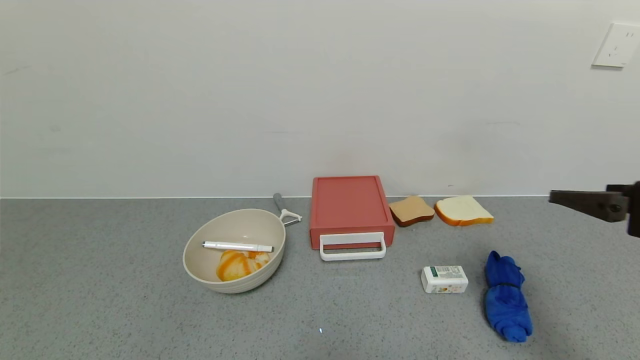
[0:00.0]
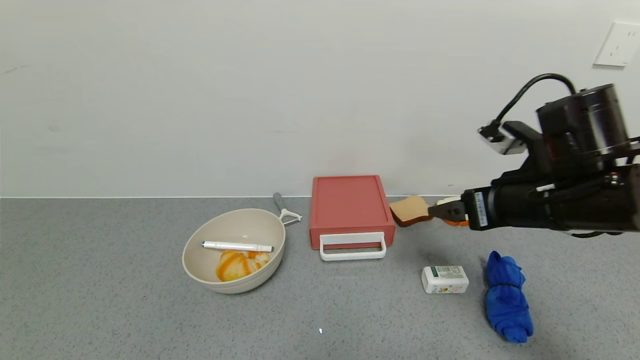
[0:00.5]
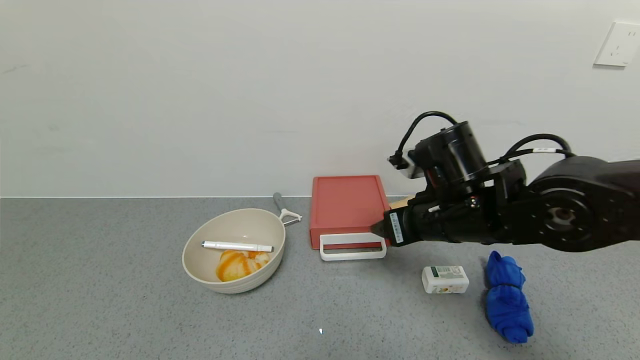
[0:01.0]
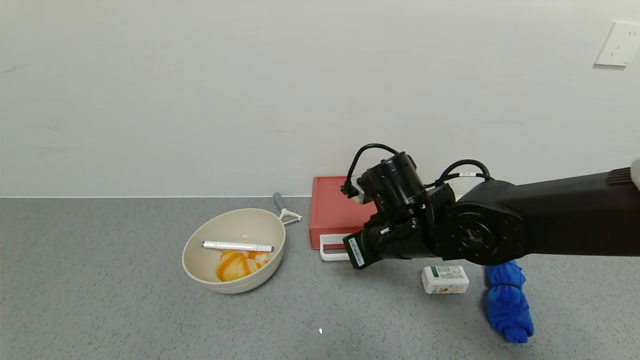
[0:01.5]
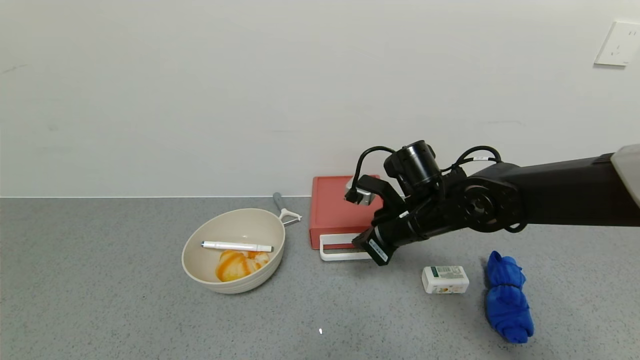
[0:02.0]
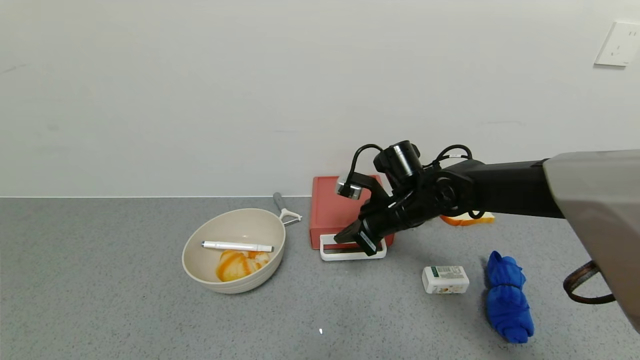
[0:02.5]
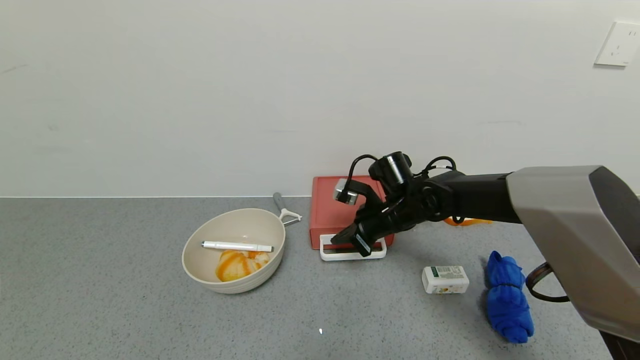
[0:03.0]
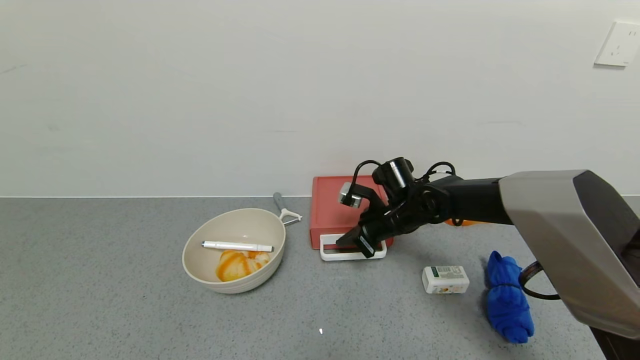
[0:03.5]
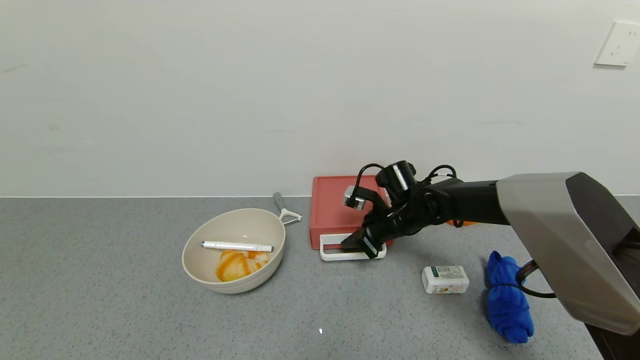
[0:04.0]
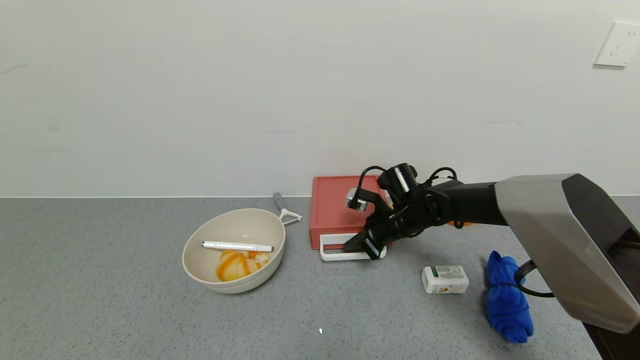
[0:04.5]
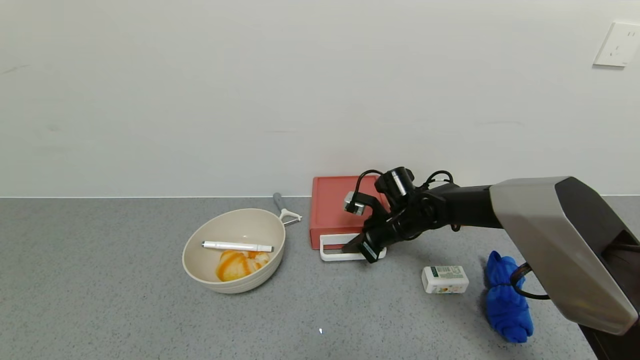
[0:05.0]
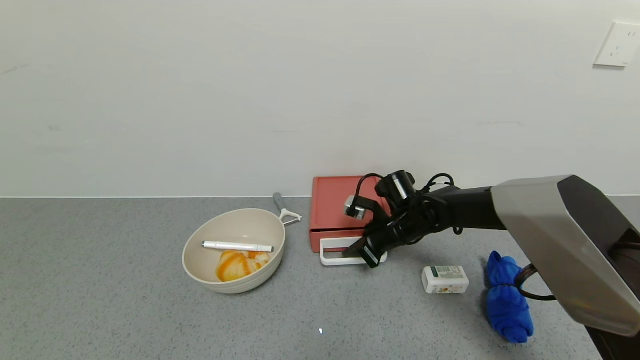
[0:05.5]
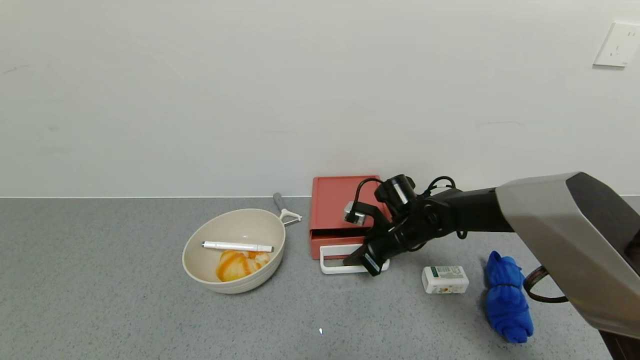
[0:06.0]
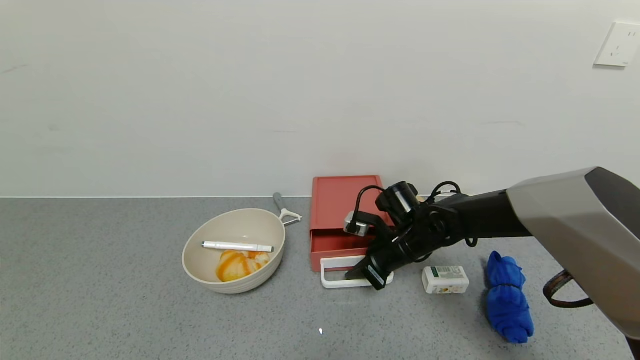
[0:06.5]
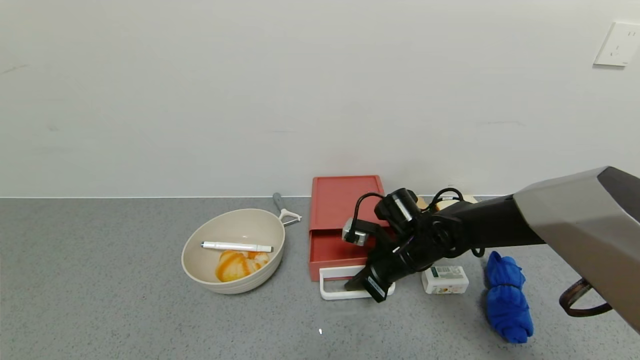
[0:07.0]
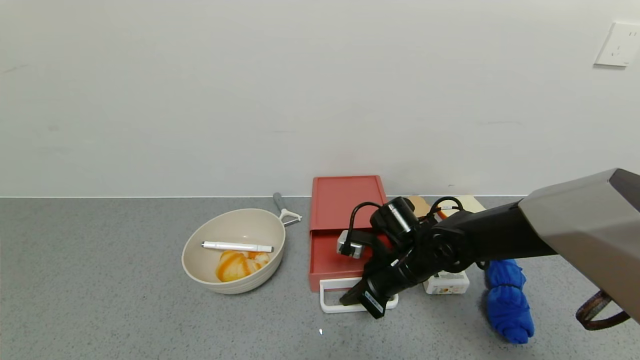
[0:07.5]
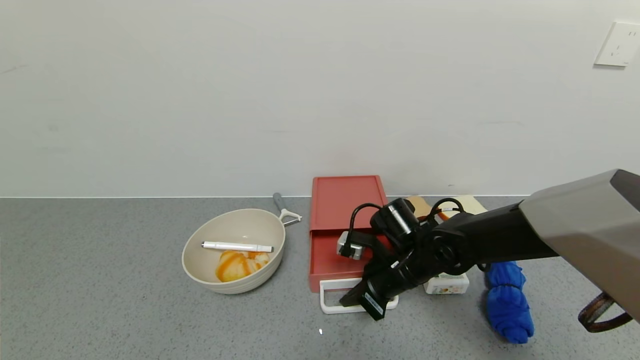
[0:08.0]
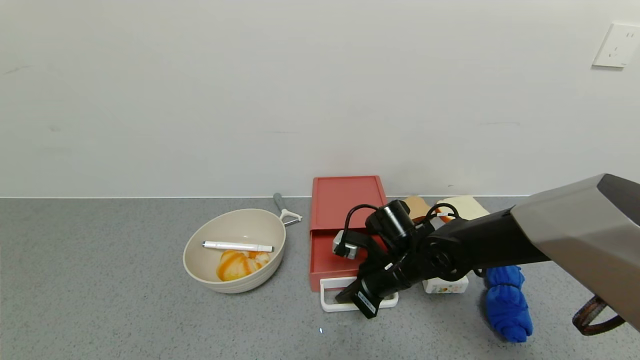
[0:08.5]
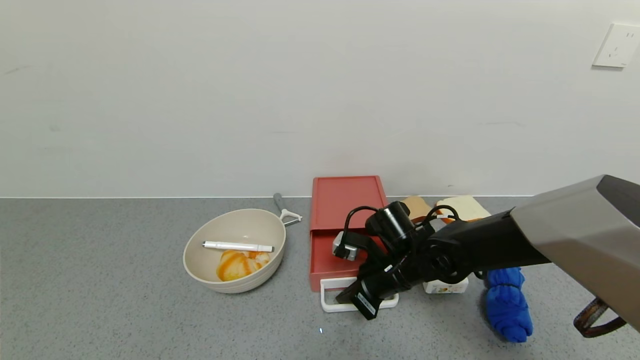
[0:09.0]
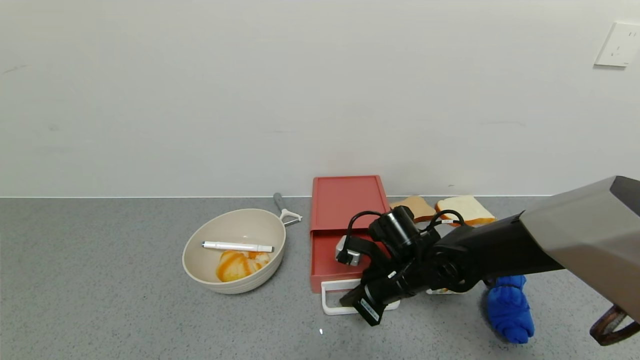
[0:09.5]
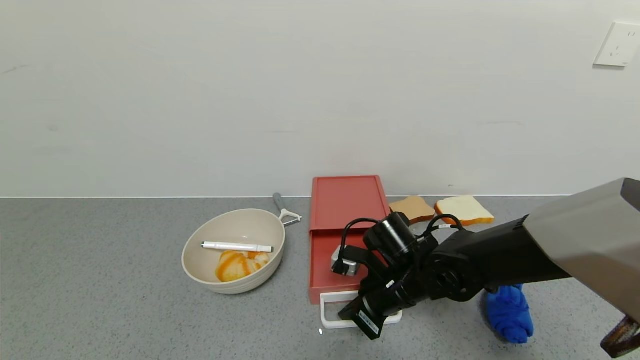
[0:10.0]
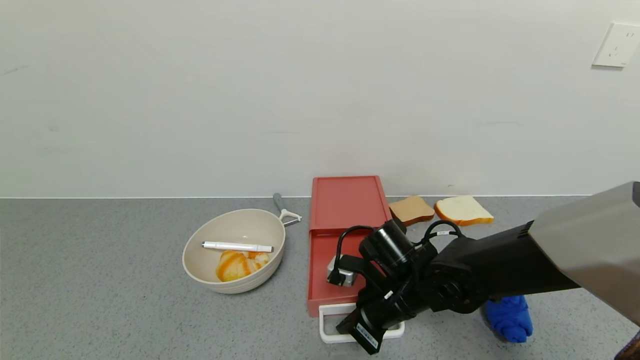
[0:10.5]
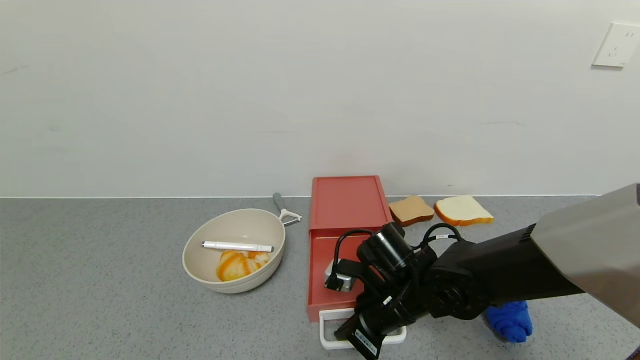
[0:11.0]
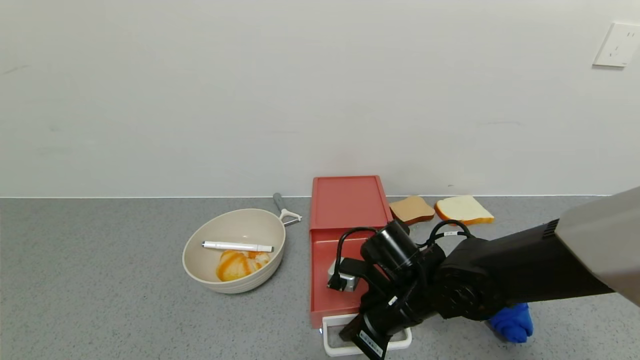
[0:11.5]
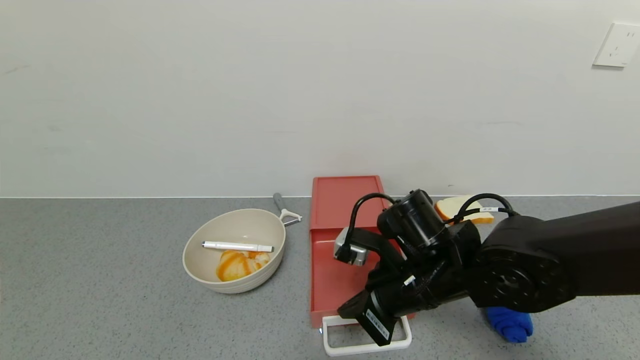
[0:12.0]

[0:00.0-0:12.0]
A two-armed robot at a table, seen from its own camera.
Task of the whole recording: use the gripper to open the drawer and close the red drawer.
Step, 0:00.0 to 0:11.5: Open the red drawer with the right gripper.
0:00.0 to 0:02.0: The right gripper moves to the left, forward and downward, about 30 cm, and closes up.
0:02.0 to 0:04.0: The right gripper is displaced forward and downward by some 10 cm.
0:04.0 to 0:06.0: The grippers stay close to where they were, moving slightly.
0:06.0 to 0:08.0: The right gripper moves backward, about 10 cm.
0:08.0 to 0:10.0: The grippers stay close to where they were, moving slightly.
0:10.0 to 0:12.0: The right gripper travels upward by roughly 10 cm.

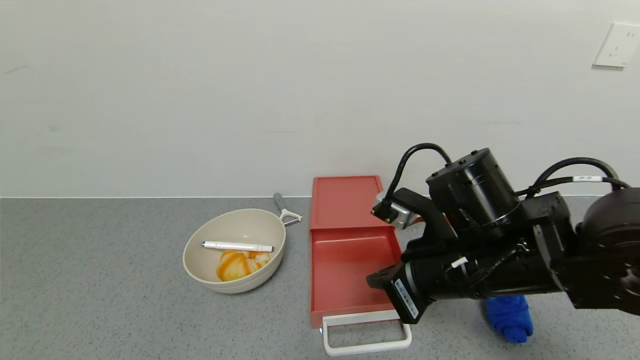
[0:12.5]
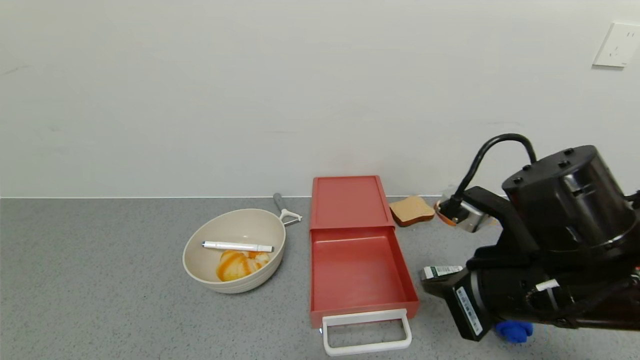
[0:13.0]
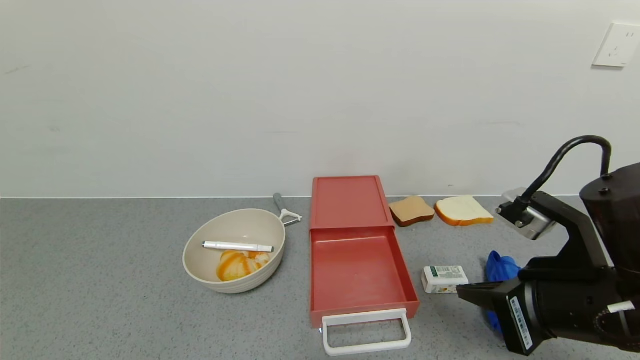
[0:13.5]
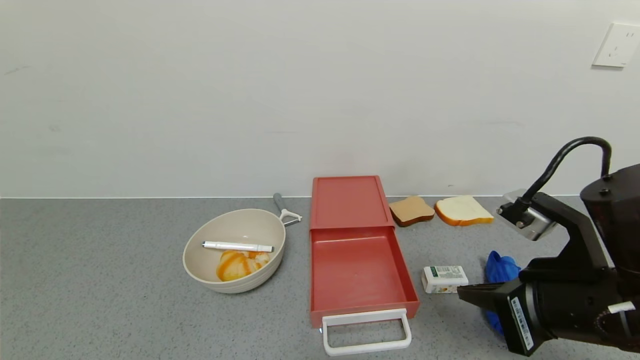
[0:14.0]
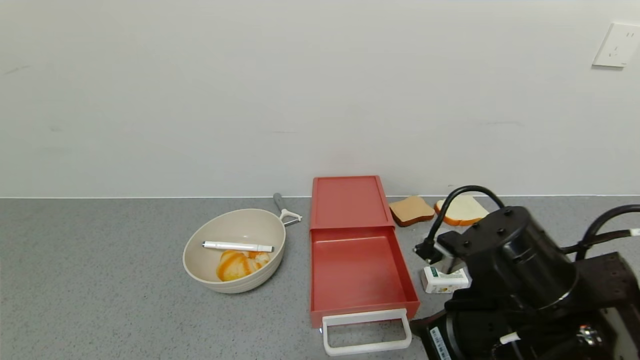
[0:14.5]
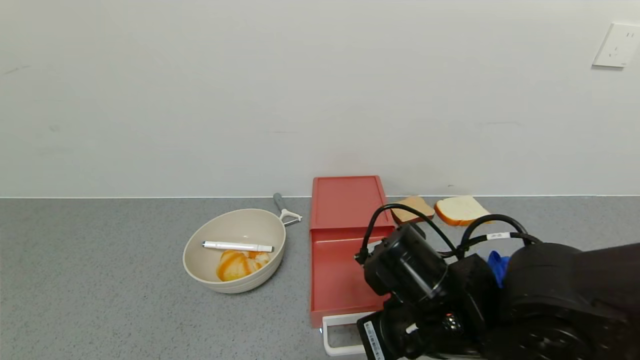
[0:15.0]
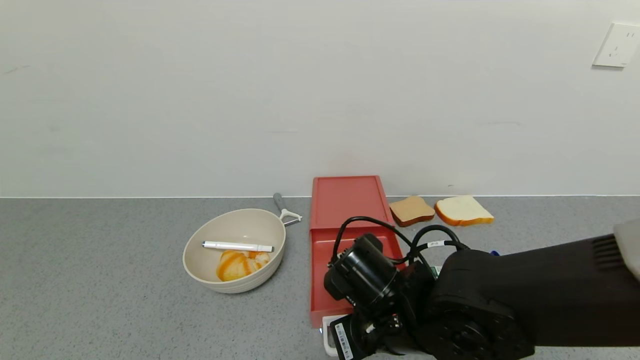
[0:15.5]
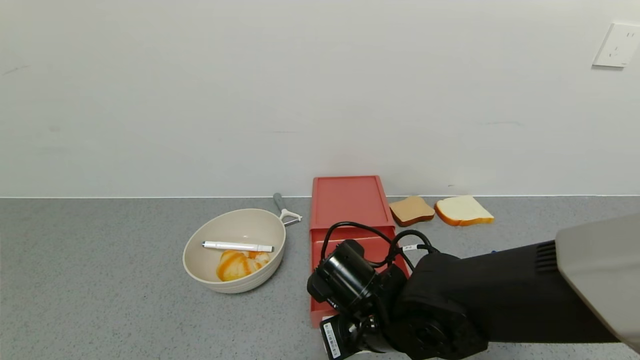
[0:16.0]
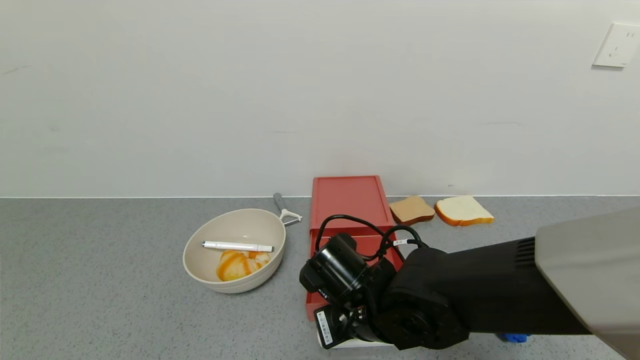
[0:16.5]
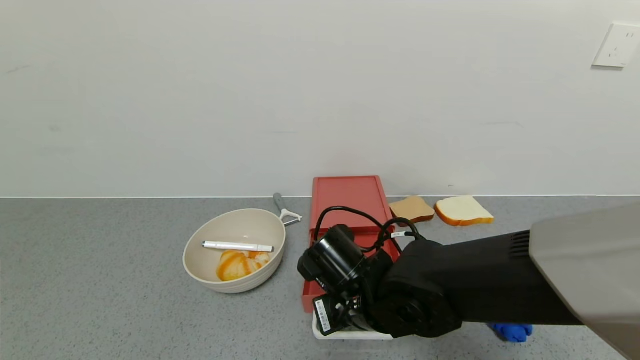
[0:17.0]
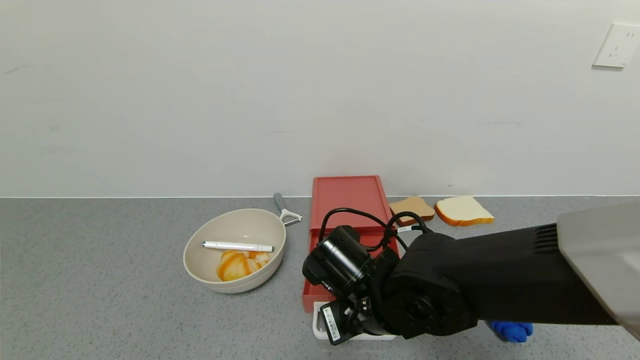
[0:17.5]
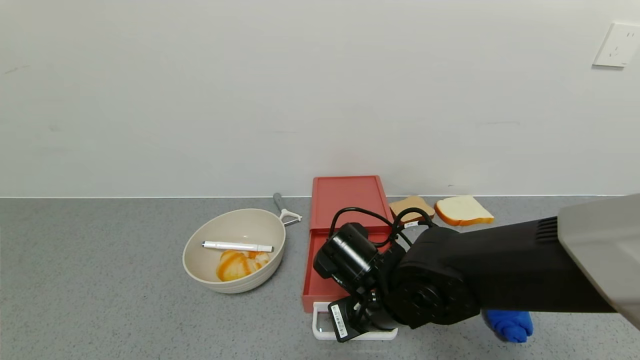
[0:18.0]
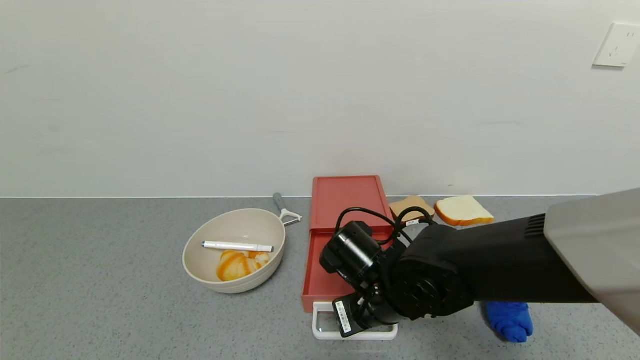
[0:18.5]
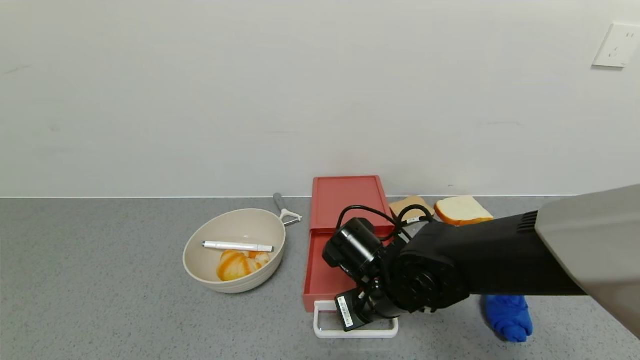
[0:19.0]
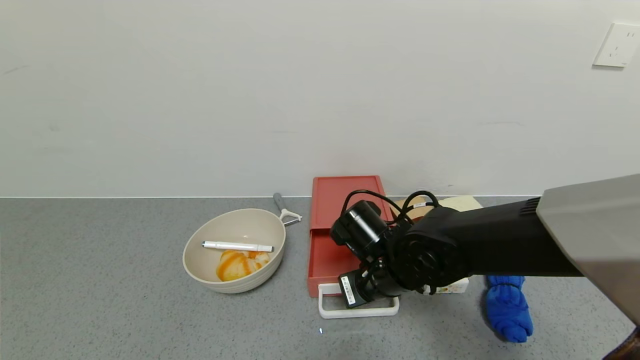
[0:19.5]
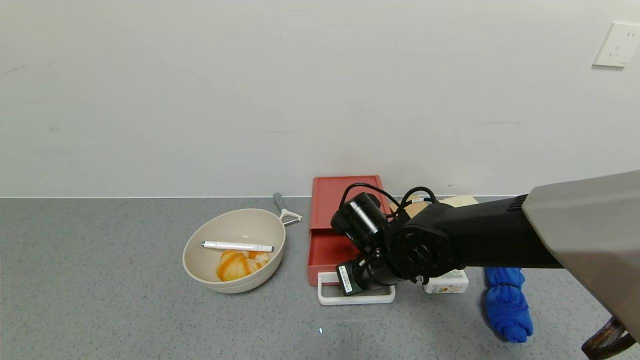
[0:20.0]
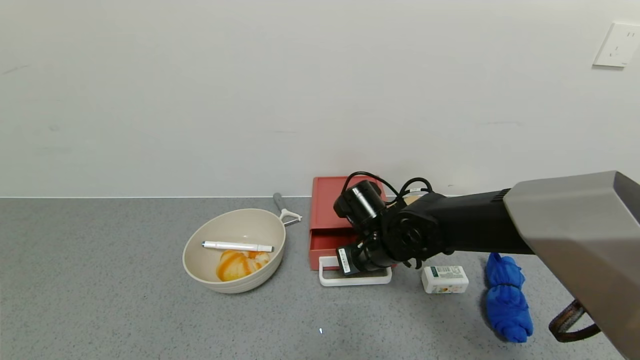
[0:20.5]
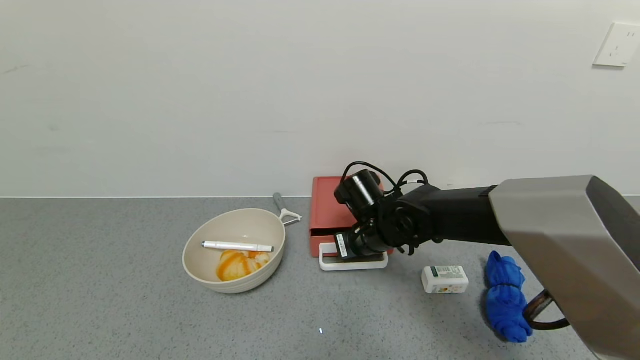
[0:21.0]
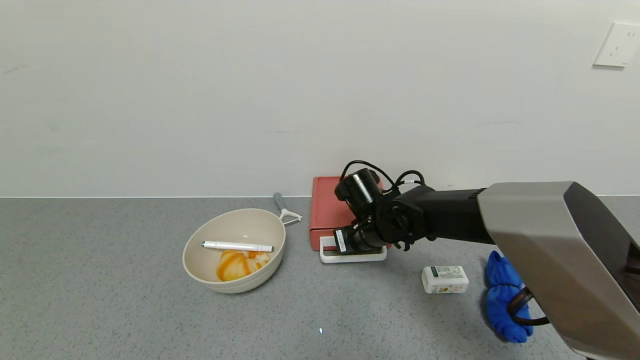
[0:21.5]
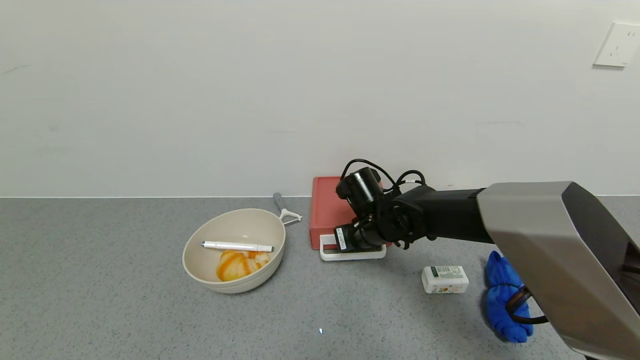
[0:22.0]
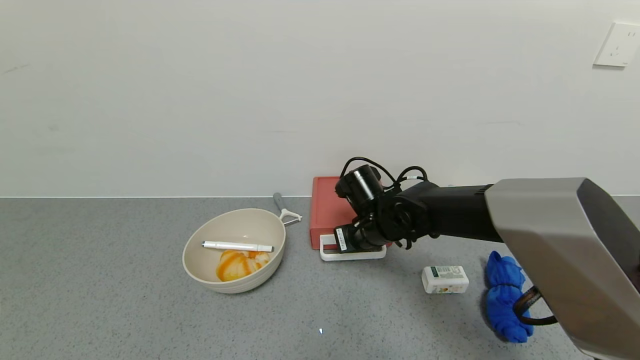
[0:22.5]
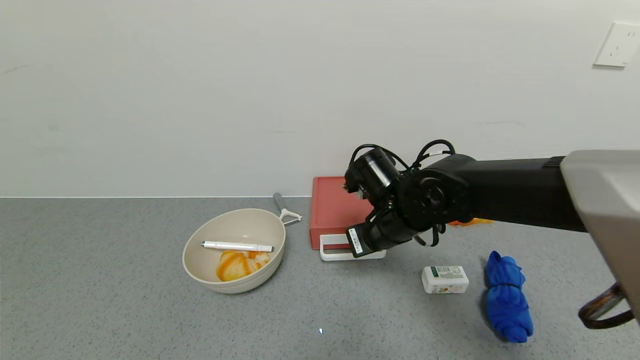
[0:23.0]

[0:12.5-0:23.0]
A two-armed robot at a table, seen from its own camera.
Task of the whole recording: use the gripper to open the drawer and close the red drawer.
Step, 0:12.5 to 0:22.5: Close the red drawer with the right gripper.
0:12.5 to 0:14.5: The right gripper is displaced backward by some 5 cm, and goes to the right and returns, some 10 cm each way.
0:14.5 to 0:16.5: The right gripper moves to the left, downward and forward, about 15 cm.
0:16.5 to 0:19.0: The grippers stay close to where they were, moving slightly.
0:19.0 to 0:21.0: The right gripper moves forward, roughly 10 cm.
0:21.0 to 0:23.0: The right gripper changes place by approximately 5 cm.
